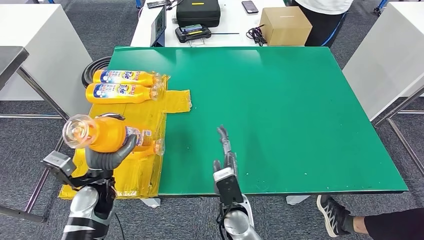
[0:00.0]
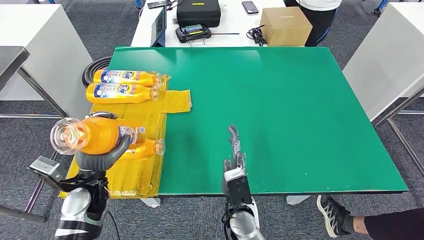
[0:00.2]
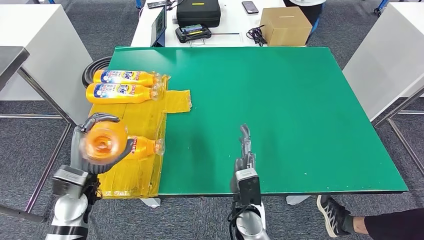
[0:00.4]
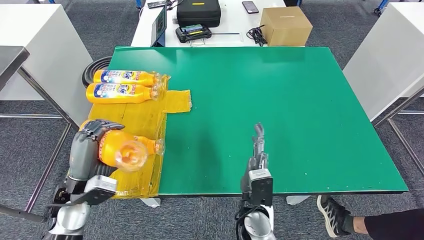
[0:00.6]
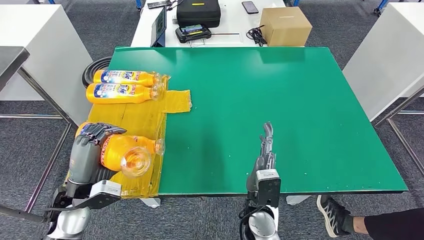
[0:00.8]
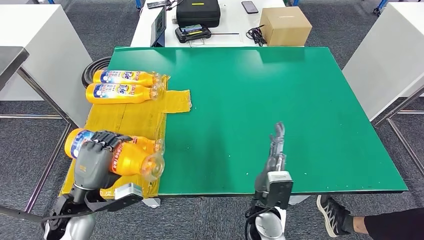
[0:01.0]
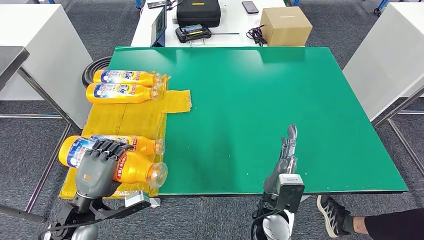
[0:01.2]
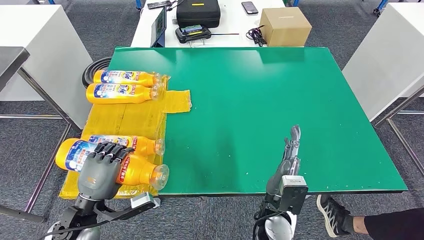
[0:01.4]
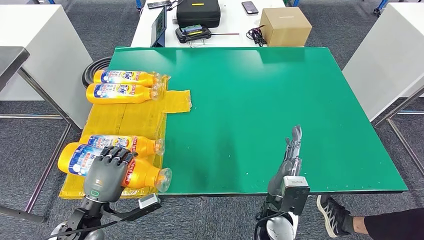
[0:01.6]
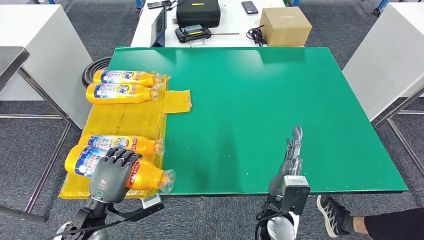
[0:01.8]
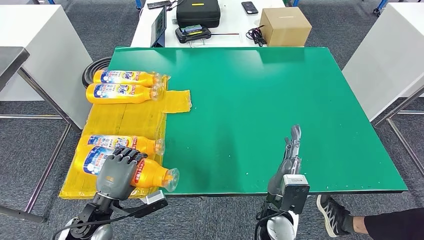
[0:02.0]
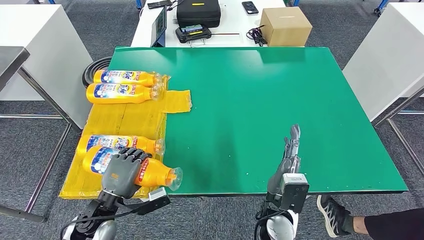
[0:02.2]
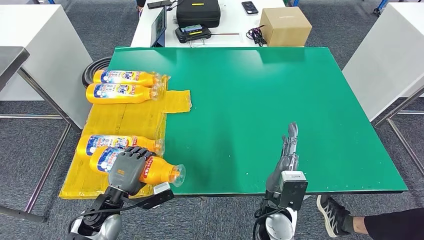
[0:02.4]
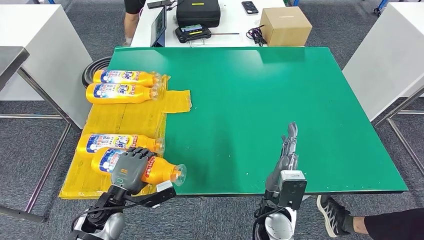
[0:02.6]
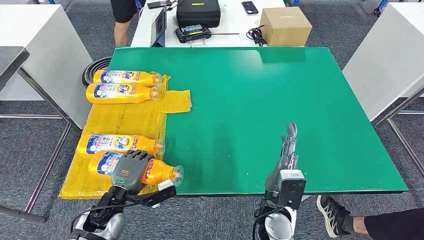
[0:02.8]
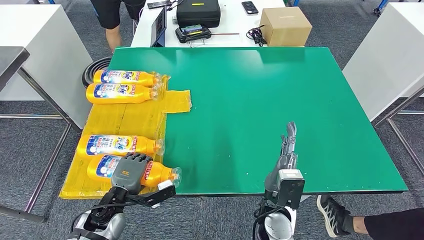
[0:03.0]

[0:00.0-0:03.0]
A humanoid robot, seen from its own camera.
Step, 0:00.0 to 0:03.0: Flip the fast-moving consumer goods bottle to the front side.
0:00.0 to 0:01.6: The right hand heads to the right, covering approximately 10 cm, while the left hand travels backward by approximately 10 cm.
0:01.6 to 0:03.0: The left hand heads downward, covering some 5 cm.
